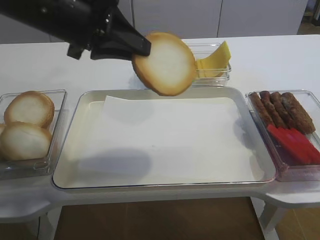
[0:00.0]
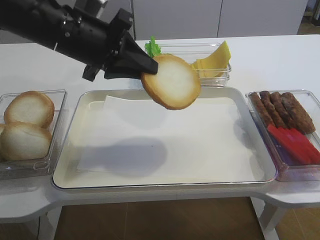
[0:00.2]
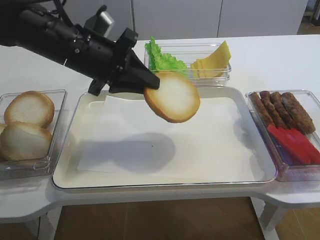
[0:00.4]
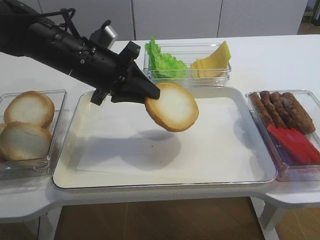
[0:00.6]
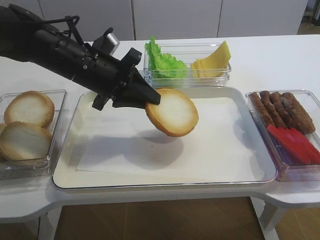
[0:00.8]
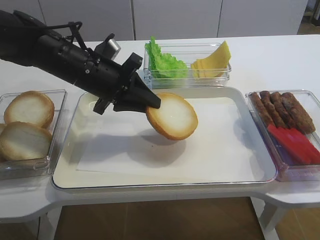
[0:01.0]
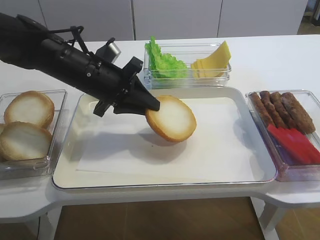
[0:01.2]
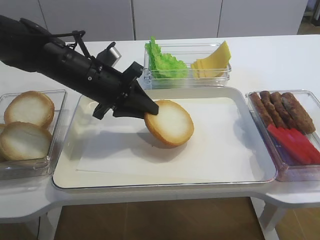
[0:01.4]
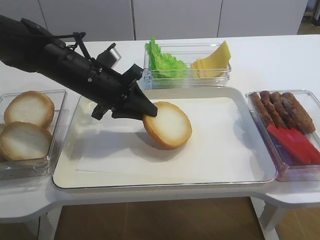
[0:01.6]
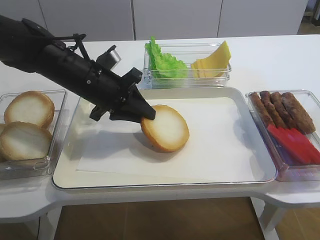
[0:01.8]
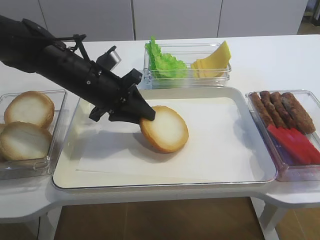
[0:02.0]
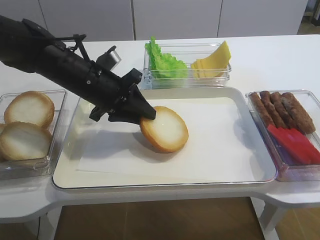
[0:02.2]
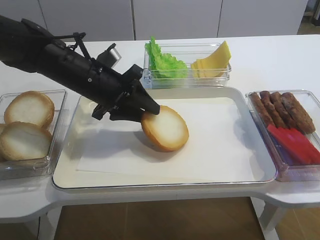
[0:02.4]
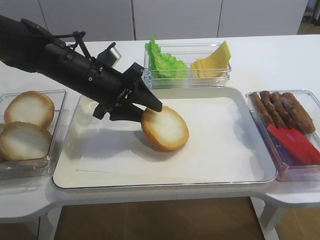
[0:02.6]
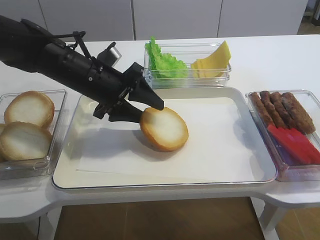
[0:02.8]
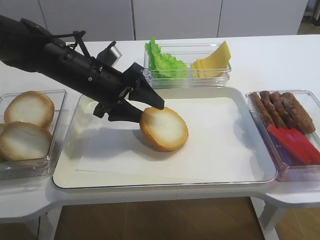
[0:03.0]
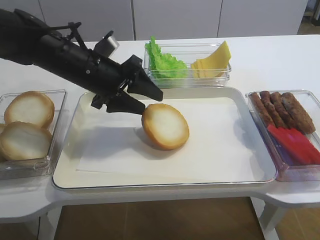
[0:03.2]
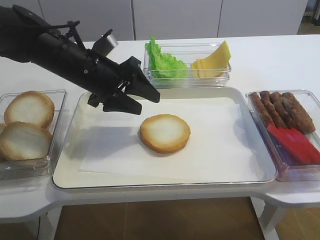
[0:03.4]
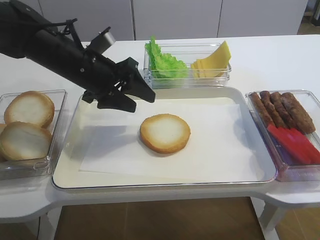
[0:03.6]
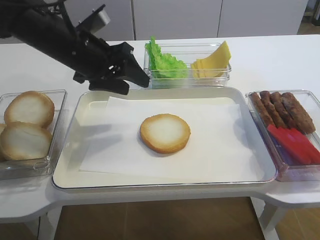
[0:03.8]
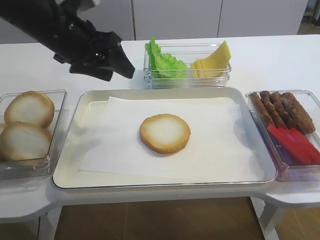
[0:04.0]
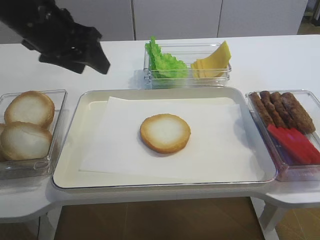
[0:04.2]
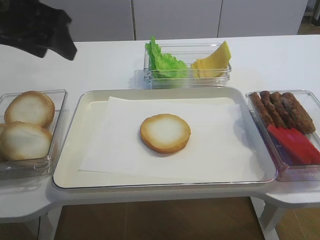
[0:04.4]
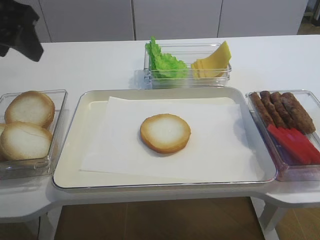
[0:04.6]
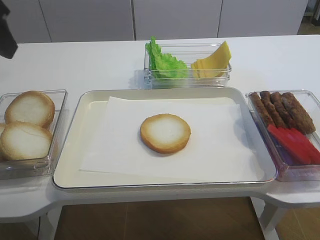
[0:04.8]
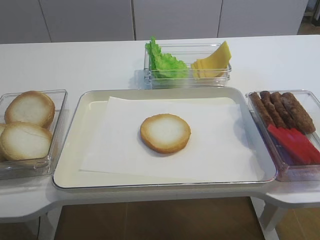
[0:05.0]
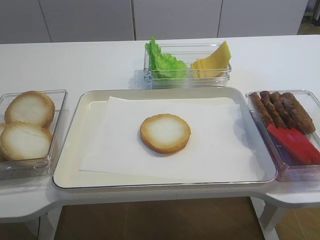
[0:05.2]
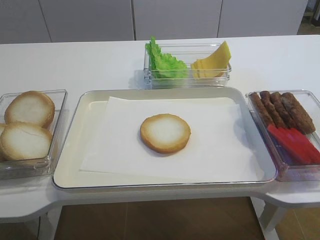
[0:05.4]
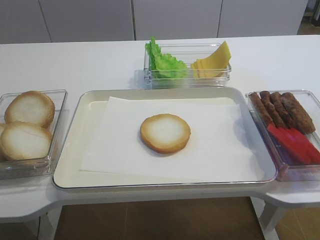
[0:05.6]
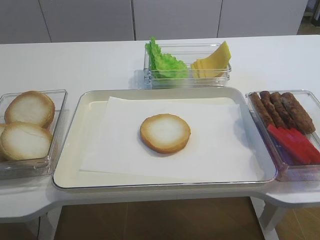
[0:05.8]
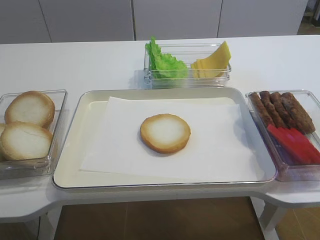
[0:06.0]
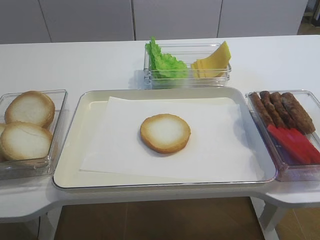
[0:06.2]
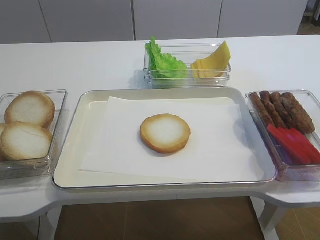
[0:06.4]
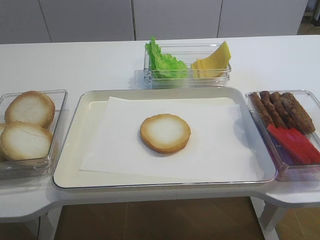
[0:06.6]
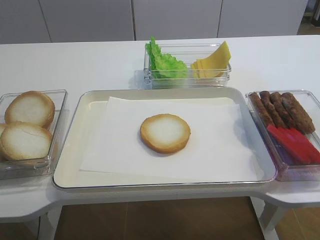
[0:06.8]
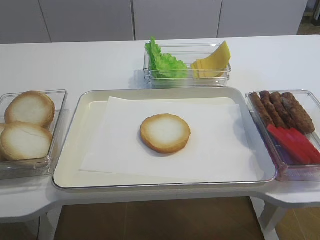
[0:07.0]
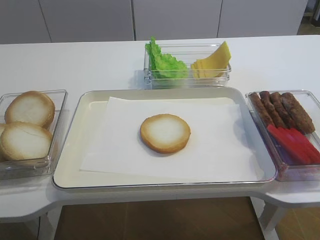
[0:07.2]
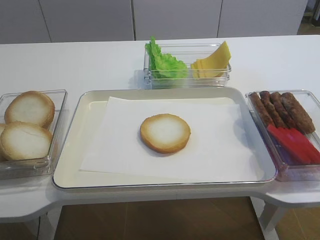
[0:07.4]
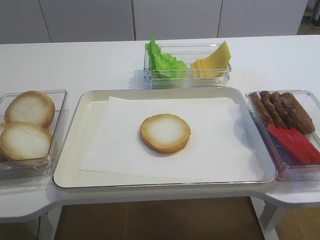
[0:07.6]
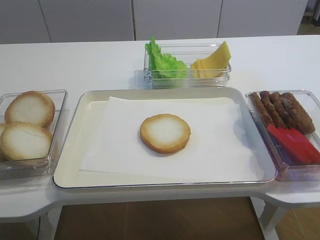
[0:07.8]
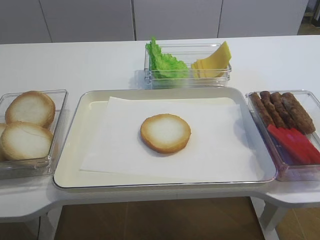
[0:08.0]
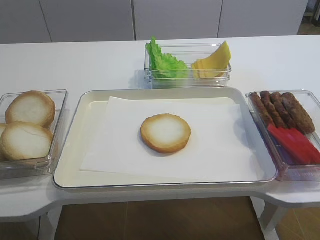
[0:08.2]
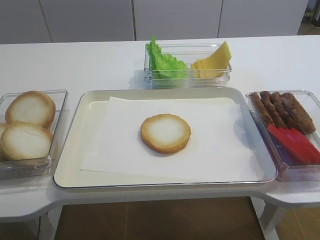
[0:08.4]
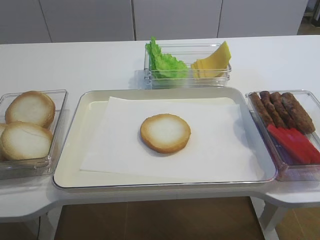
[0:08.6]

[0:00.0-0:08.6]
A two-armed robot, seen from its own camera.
Step, 0.0 to 3.6 s: Place the bread slice on the tray with the left gripper.
0.0 to 1.4 s: The left gripper travels downward by approximately 10 cm.
1.4 to 2.8 s: The left gripper opens its fingers.
2.8 to 4.4 s: The left gripper moves upward, to the left and backward, approximately 20 cm.
4.4 to 5.8 s: The left gripper heads backward and to the left, covering approximately 25 cm.

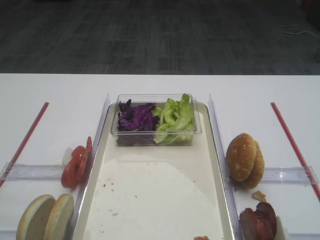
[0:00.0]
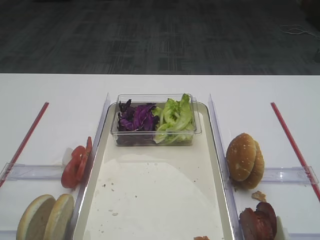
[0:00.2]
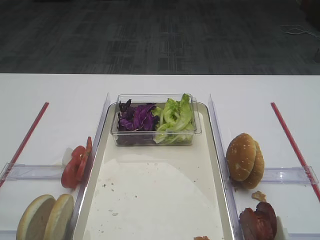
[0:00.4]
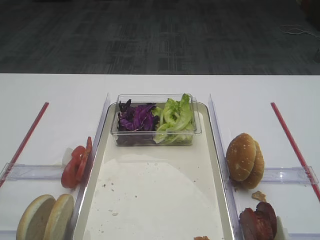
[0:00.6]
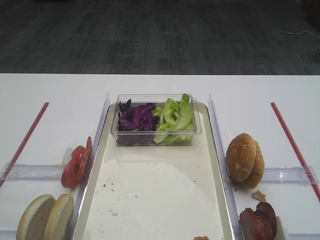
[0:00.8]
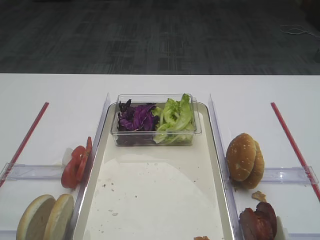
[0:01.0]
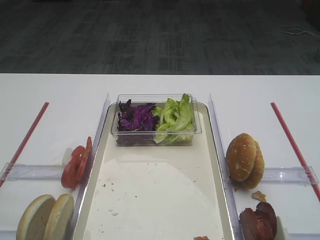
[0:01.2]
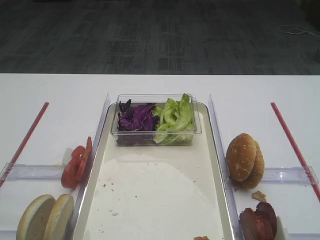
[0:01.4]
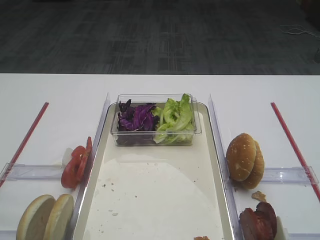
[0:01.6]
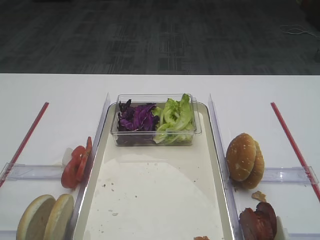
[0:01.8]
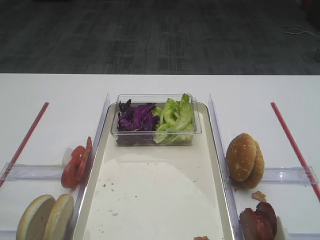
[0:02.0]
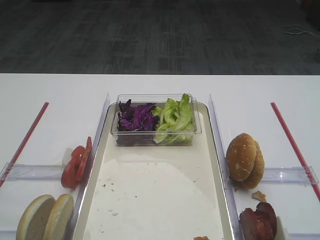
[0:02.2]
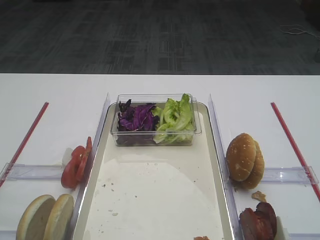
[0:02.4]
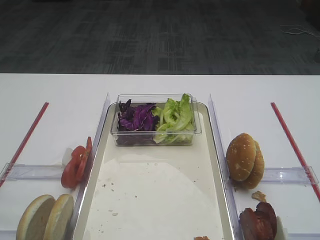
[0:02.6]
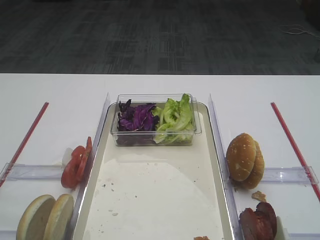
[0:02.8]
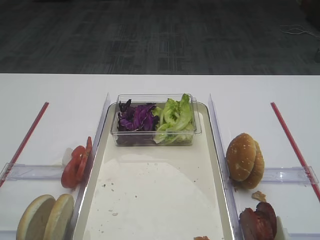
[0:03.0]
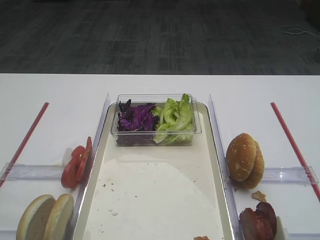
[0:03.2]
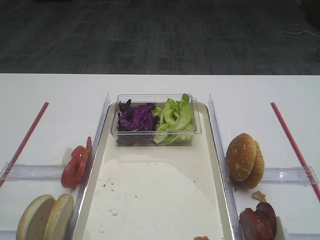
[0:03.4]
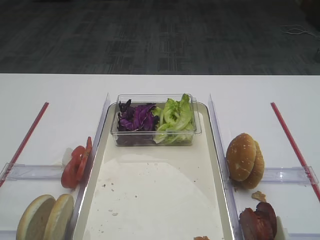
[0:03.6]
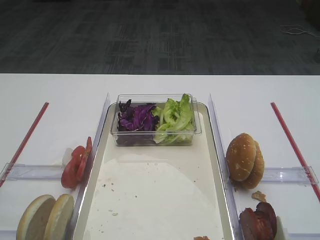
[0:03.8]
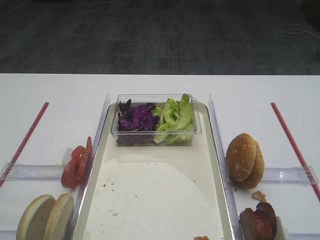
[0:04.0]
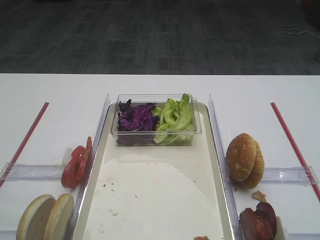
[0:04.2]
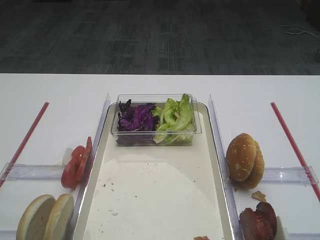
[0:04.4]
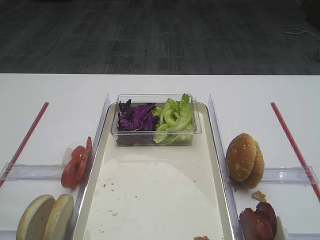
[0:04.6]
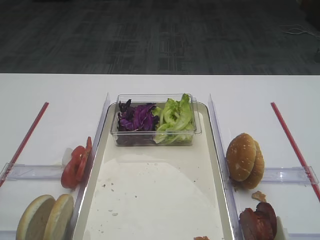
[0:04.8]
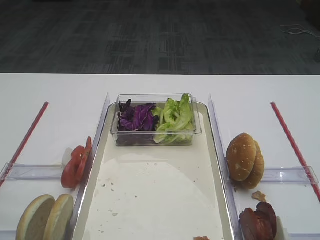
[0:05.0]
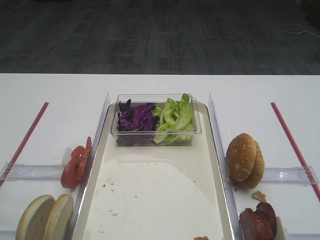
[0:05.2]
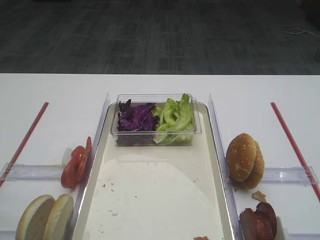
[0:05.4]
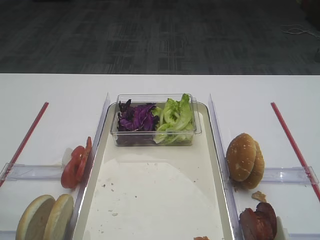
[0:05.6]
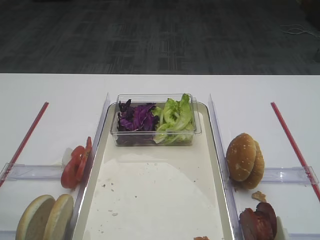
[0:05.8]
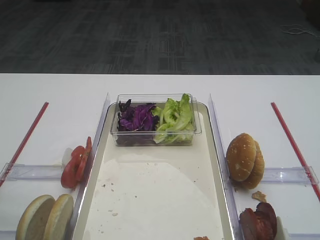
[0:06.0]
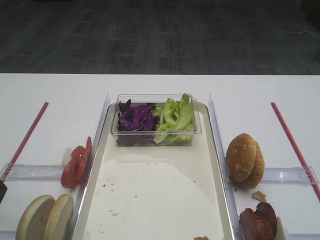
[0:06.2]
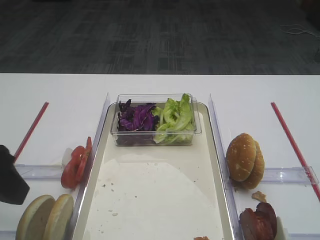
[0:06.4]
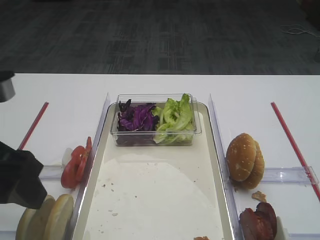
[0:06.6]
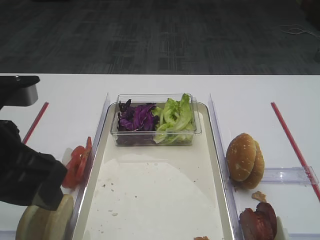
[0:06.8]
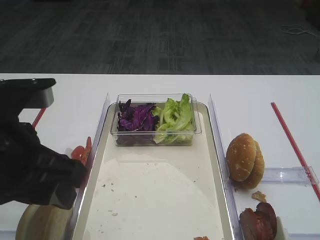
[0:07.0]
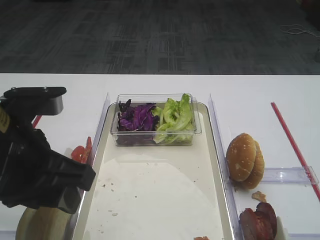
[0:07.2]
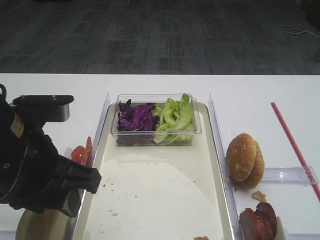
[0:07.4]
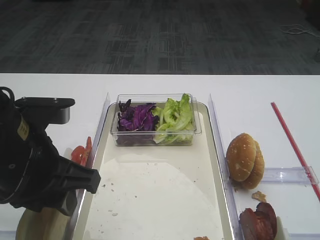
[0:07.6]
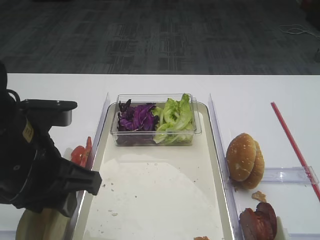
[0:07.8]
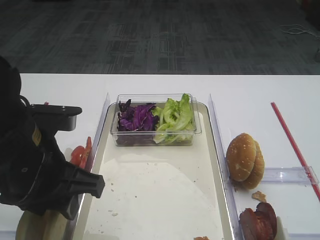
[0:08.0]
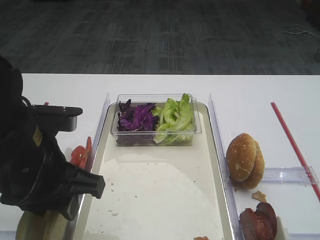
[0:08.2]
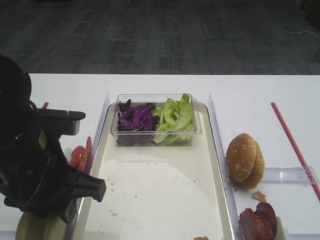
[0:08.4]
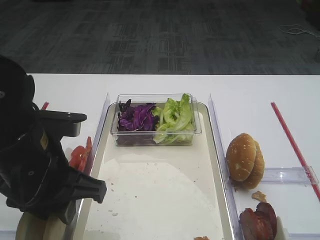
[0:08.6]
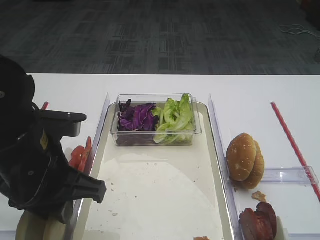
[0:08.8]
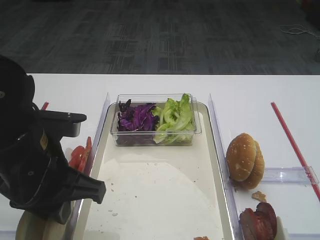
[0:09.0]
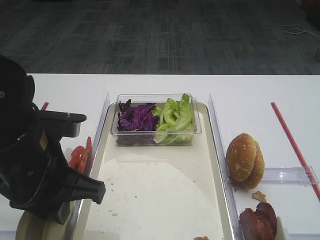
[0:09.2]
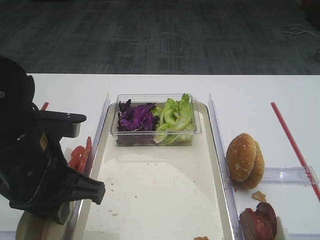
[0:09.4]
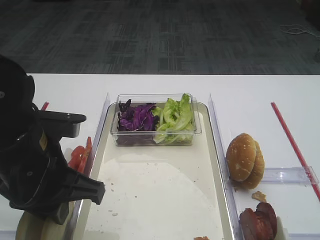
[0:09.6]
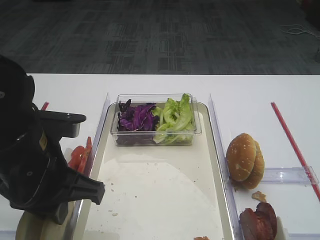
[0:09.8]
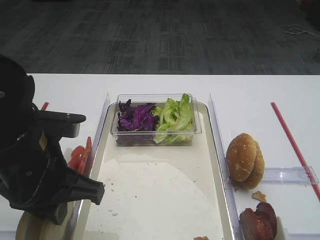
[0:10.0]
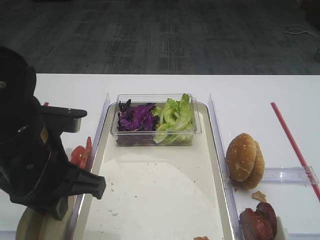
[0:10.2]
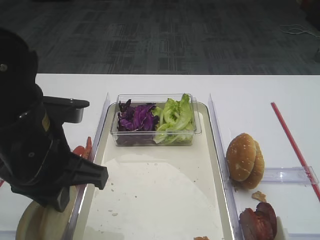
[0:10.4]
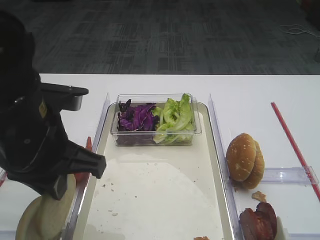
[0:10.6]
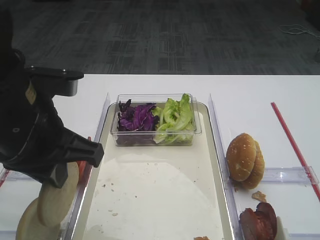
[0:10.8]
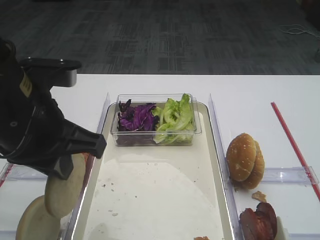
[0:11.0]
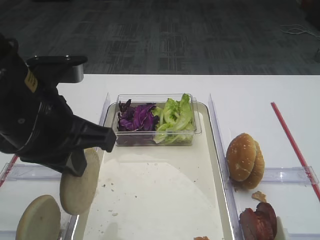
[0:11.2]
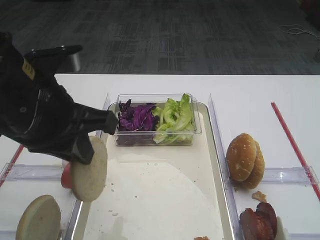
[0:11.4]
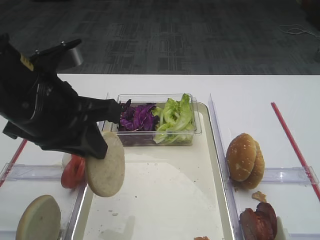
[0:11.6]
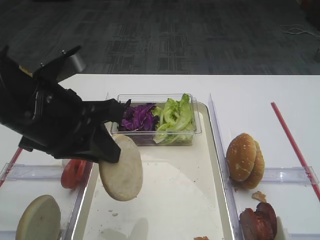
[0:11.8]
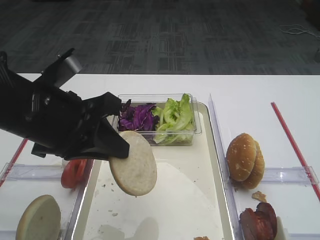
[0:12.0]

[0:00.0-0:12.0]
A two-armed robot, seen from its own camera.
Step, 0.0 to 10.6 s: Pick up the bread slice with the left gripper.
1.6 to 3.0 s: Both grippers stay put.
6.0 to 7.6 s: The left gripper shifts some 10 cm to the right.
7.6 to 9.0 s: The left gripper closes up.
9.0 to 10.4 s: The grippers move only a little.

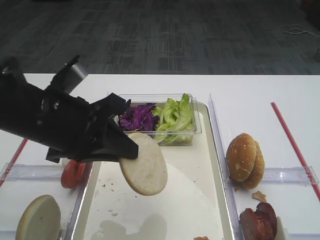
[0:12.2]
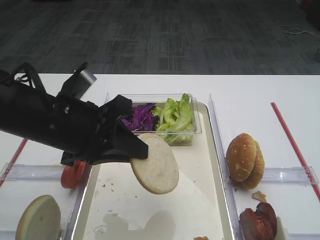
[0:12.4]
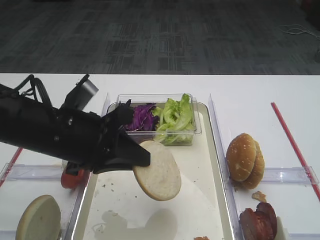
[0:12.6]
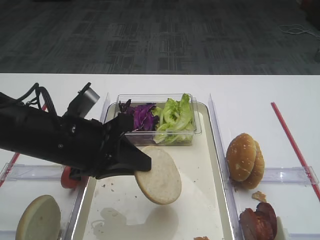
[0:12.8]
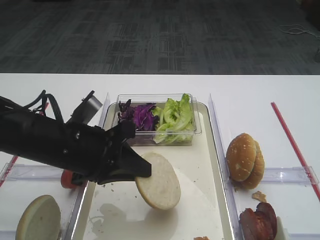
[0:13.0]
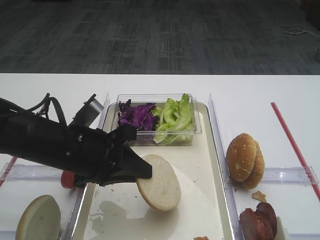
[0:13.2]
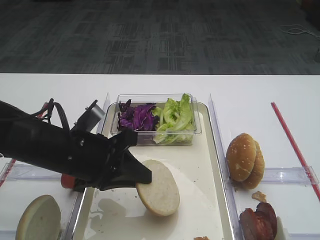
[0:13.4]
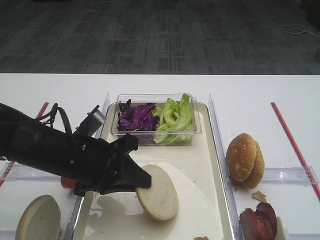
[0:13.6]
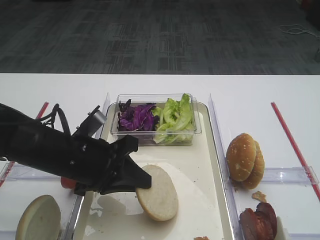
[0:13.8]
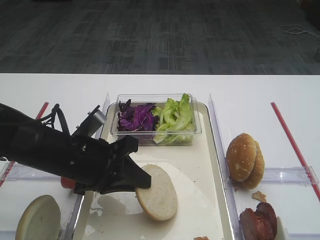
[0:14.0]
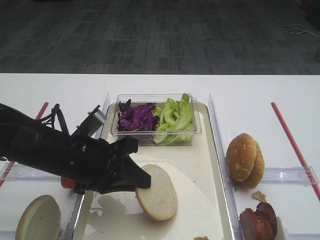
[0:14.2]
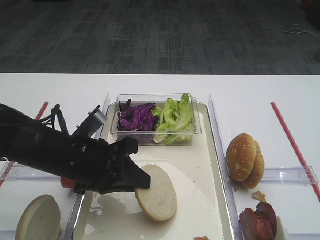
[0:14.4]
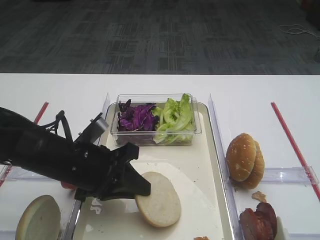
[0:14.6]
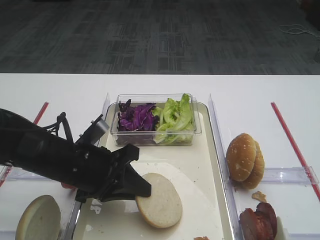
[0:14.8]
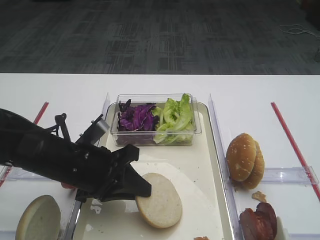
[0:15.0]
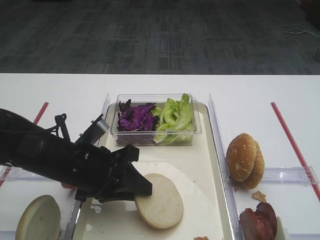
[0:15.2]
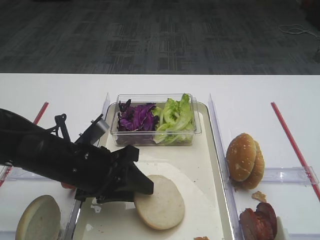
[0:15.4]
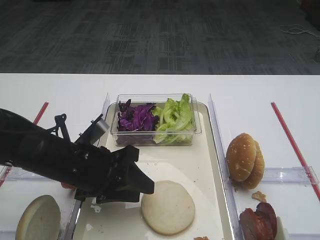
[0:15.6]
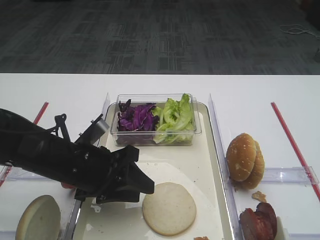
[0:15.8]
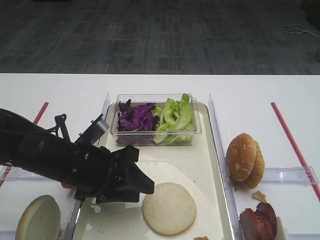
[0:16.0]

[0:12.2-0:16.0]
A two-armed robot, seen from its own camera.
12.2 to 13.4 s: The left gripper is displaced downward by about 10 cm.
13.4 to 14.8 s: The grippers make only small movements.
14.8 to 16.0 s: The left gripper opens its fingers.
